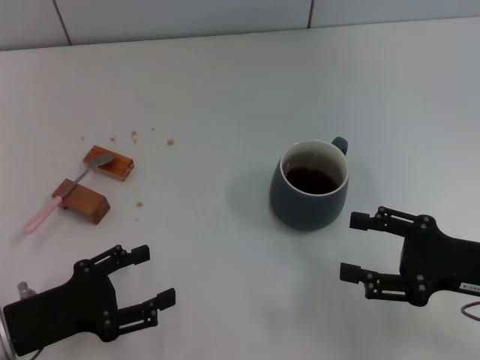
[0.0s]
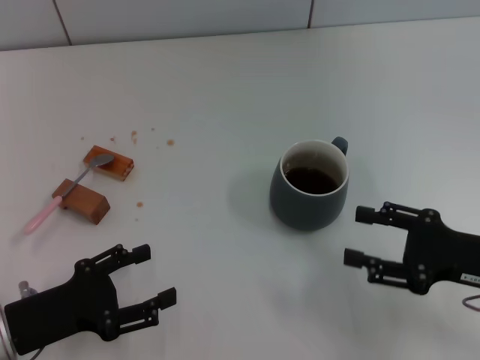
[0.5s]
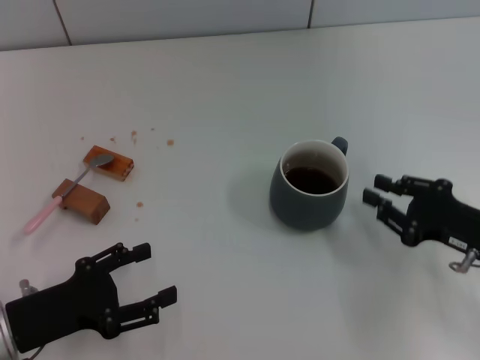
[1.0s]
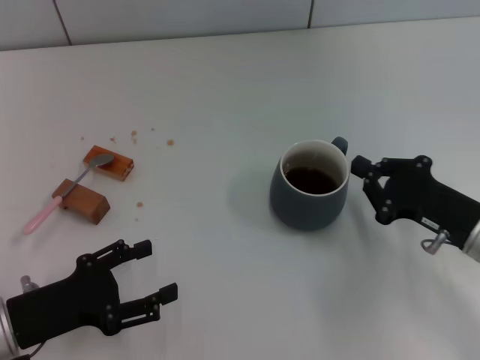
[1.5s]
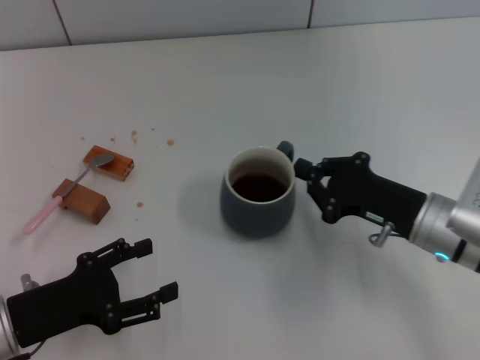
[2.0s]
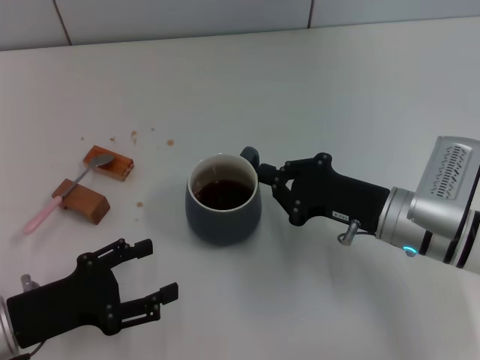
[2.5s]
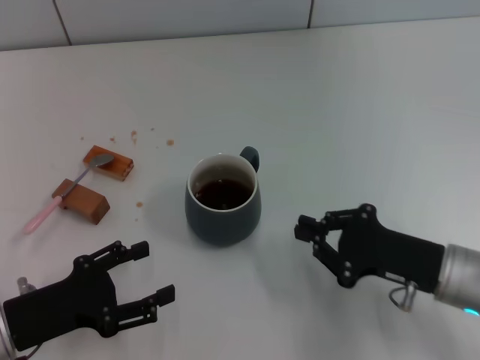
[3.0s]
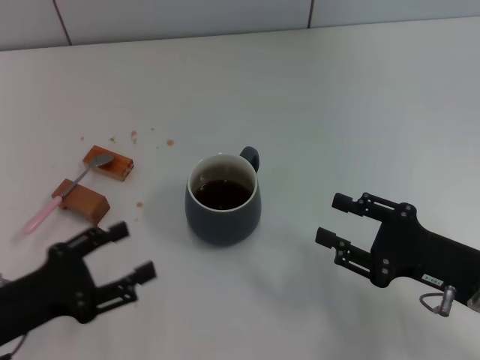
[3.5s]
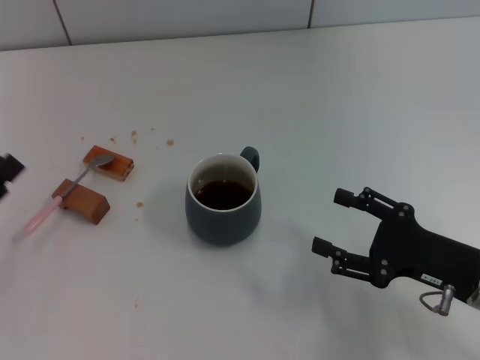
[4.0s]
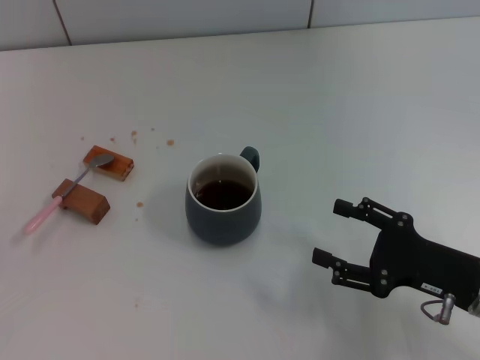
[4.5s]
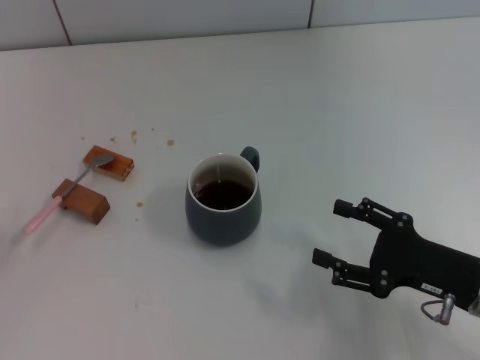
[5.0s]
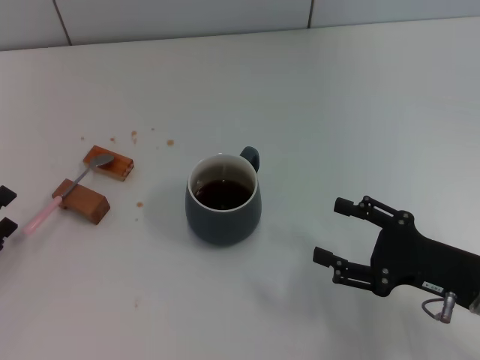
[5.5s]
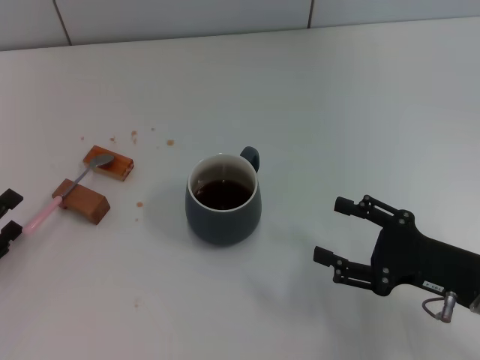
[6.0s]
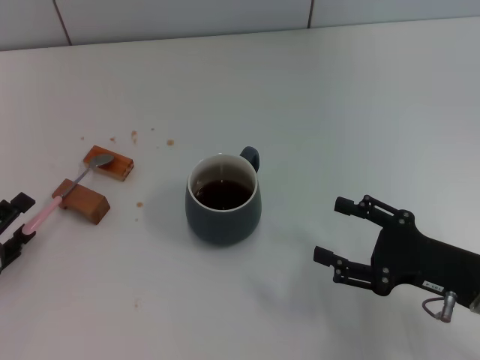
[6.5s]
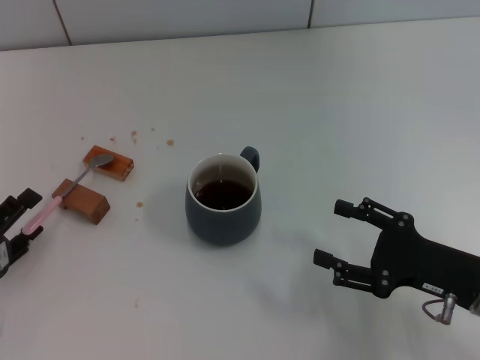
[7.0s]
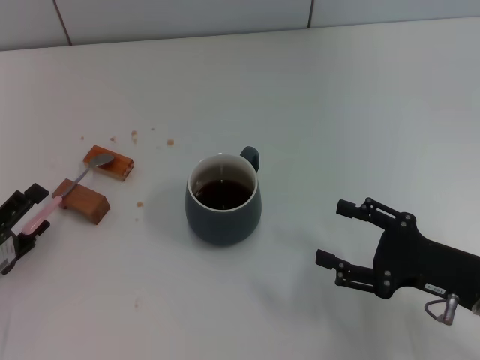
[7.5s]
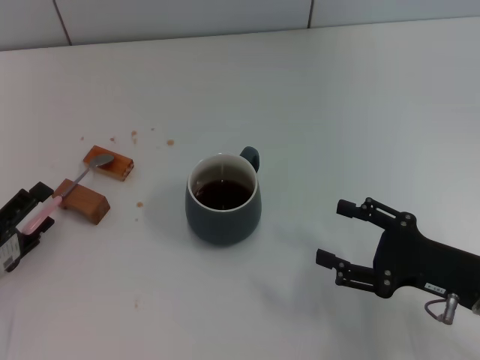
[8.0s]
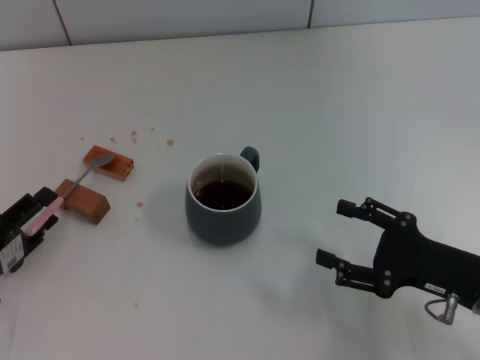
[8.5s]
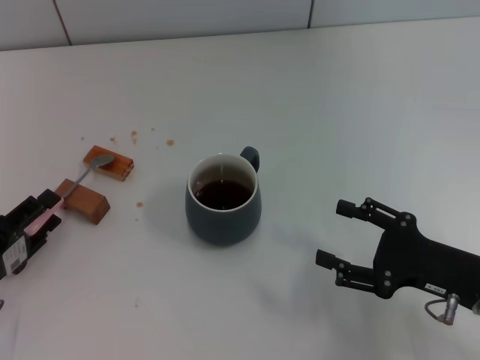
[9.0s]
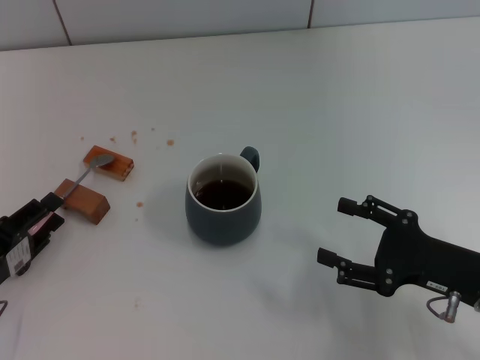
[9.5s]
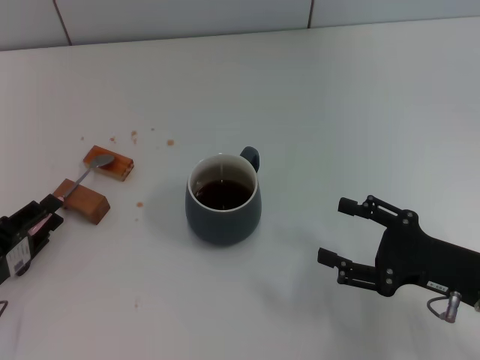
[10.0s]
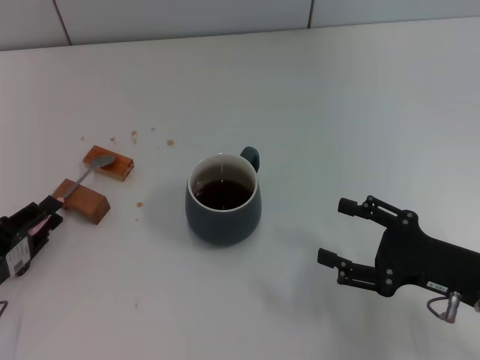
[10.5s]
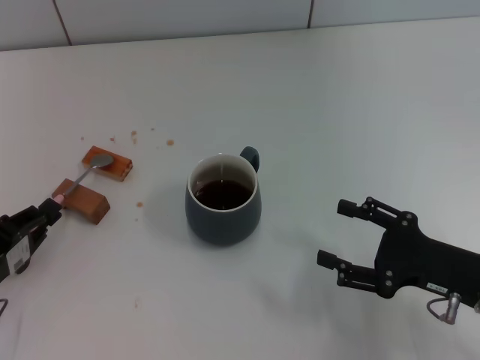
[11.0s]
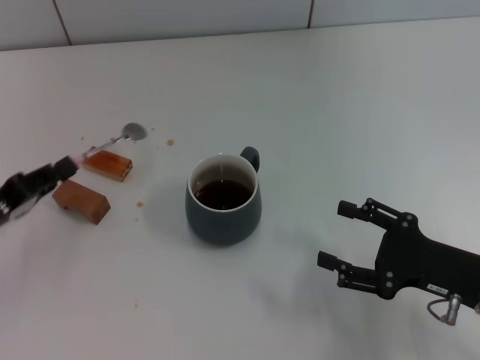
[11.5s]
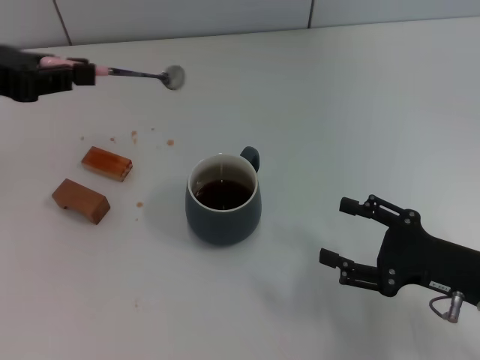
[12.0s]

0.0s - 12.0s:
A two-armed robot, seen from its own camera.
Task of the whole recording: Move the grey cup to the center, lift the pink spoon, stir it three times in the cup, and put the spoon into the cup.
Step, 0.0s - 2.5s: Move the cup with coffee to the center of view with the right gripper.
Step, 3.5s - 11.5s: Pick up the spoon with the left gripper.
0.0s - 2.0s: The right gripper moves to the left and forward, approximately 10 cm, and closes.
2.0s - 4.0s: The left gripper heads to the left, covering approximately 5 cm. The right gripper travels backward by roughly 5 cm, and opens its fingers.
6.0s - 8.0s: The grippers stay close to where they were, moving slightly.
8.0s - 10.0s: The left gripper closes.
10.0s - 12.0s: The left gripper goes roughly 25 cm upward and forward, and closes its fingers.

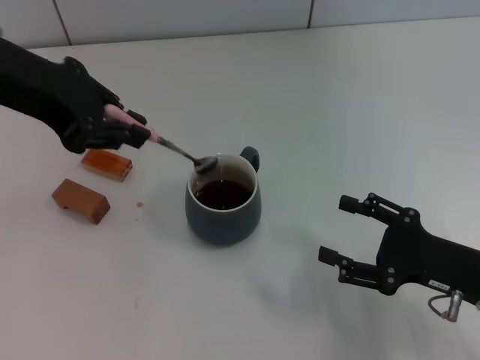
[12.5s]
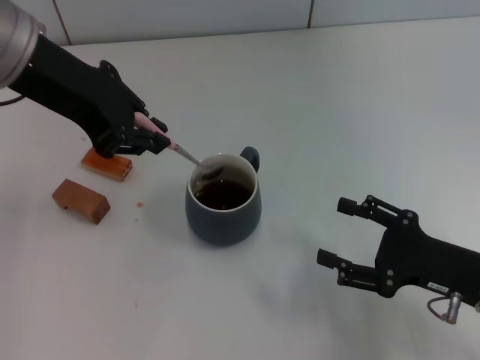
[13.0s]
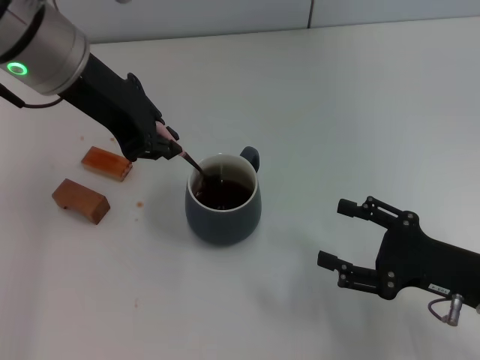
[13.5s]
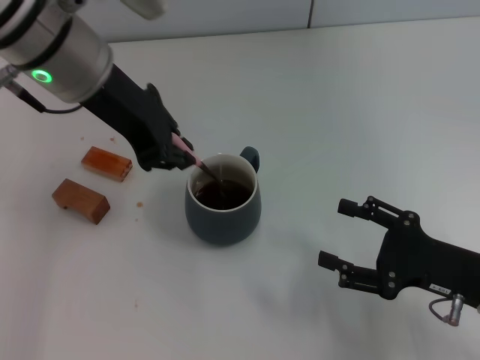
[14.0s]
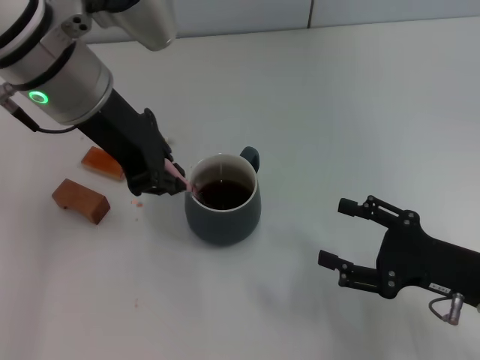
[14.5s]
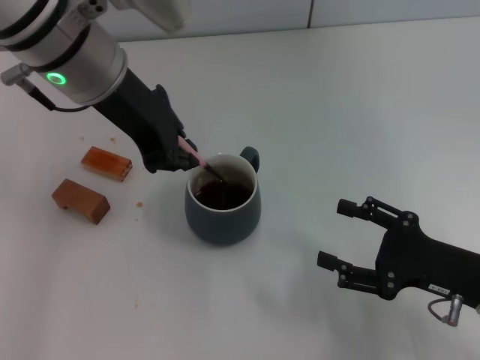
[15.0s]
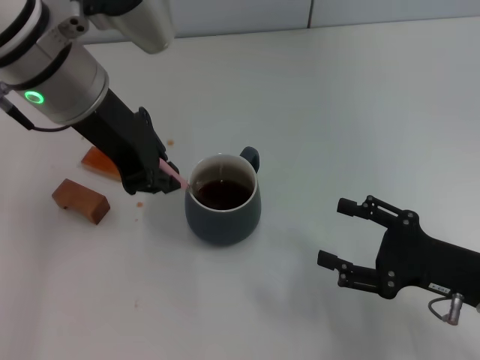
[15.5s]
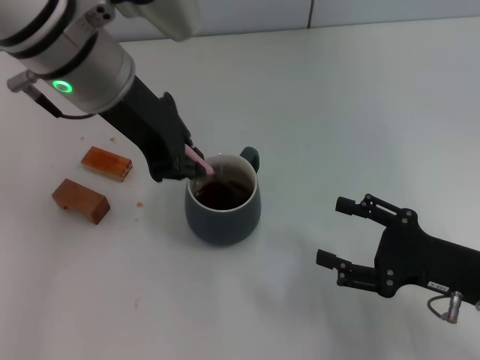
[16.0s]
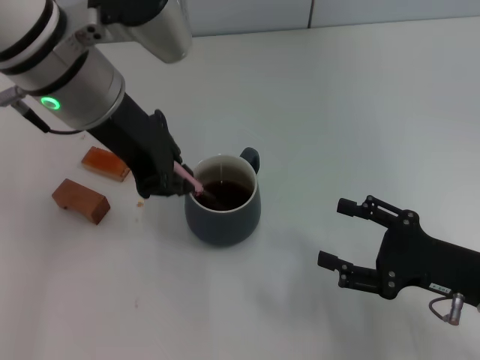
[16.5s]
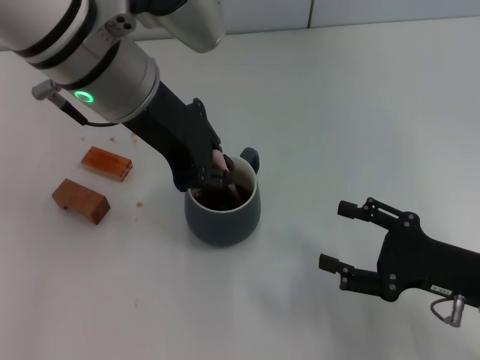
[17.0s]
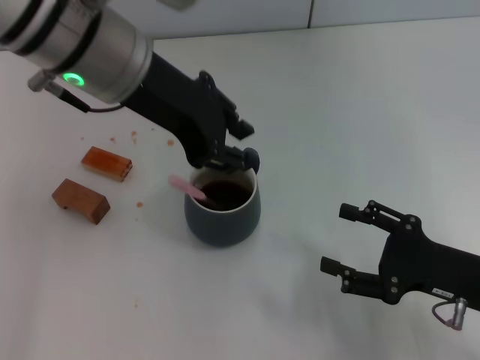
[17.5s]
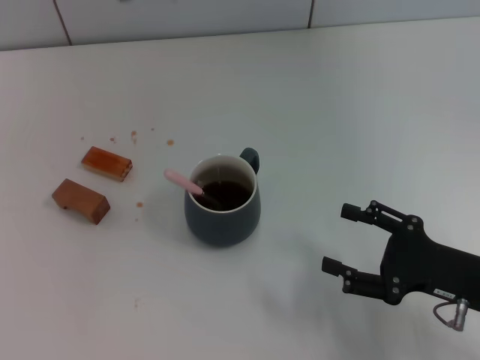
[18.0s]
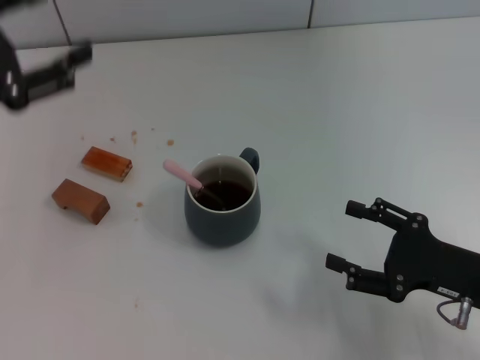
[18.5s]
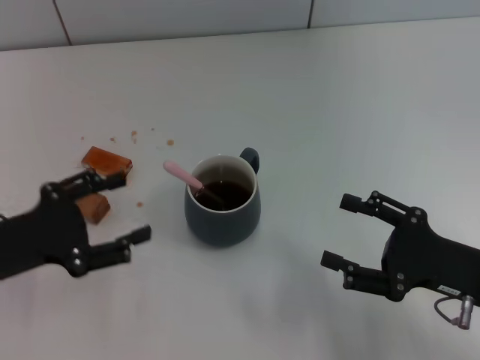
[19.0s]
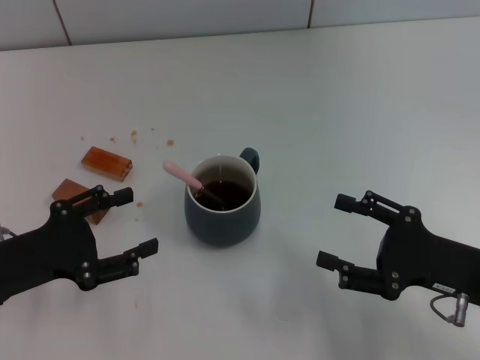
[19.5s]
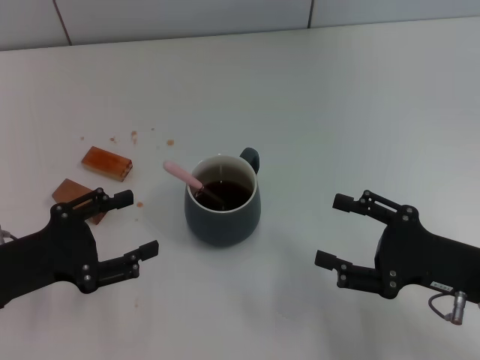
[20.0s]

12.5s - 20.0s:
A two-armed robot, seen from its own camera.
Task of the whole recording: Move the grey cup to the center, lift the pink spoon, stir it three times in the cup, and put the spoon into the cup.
Step, 12.5s - 17.5s: Stir the coffee in the cup with the left gripper.
12.5s - 14.5s: The left gripper moves to the right, about 10 cm.
14.5s - 16.5s: There are only small adjustments of the grippers.
16.5s - 18.0s: The left gripper shifts some 10 cm to the left and upward, and opens its fingers.
18.0s - 20.0s: The left gripper heads downward and backward, covering some 25 cm.
